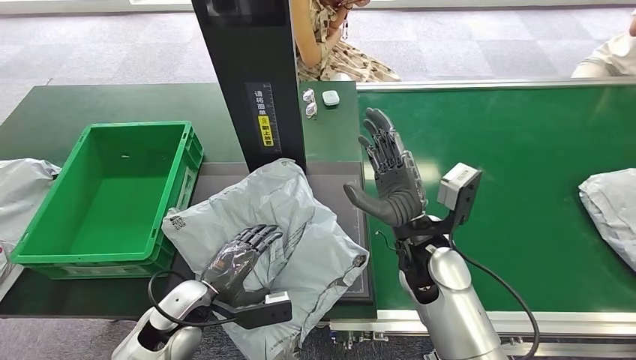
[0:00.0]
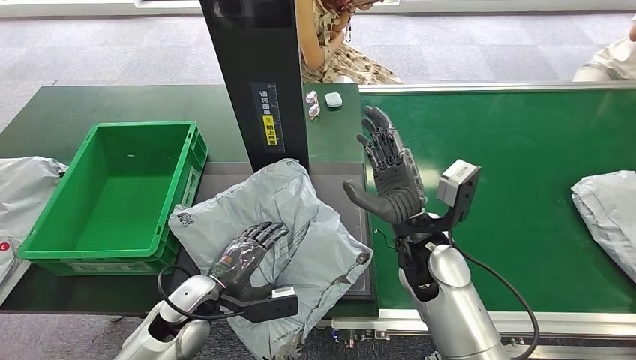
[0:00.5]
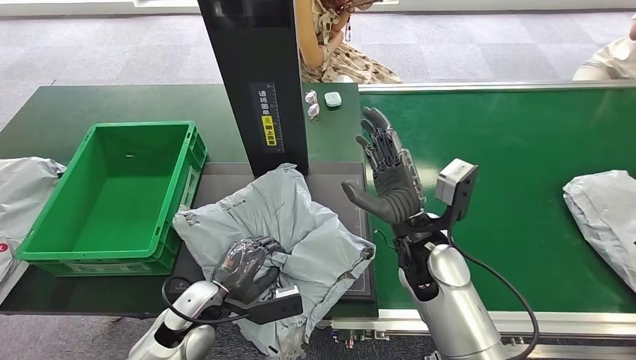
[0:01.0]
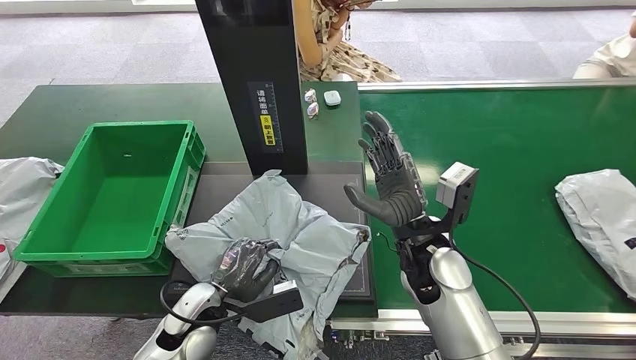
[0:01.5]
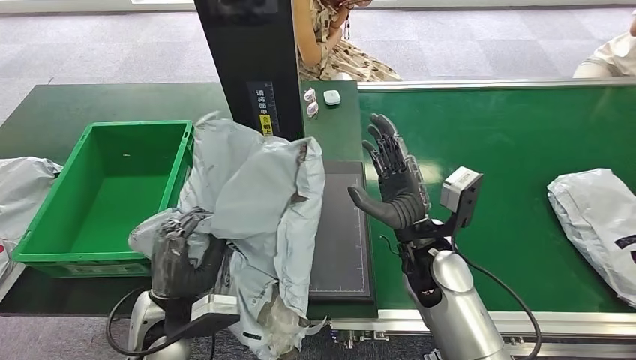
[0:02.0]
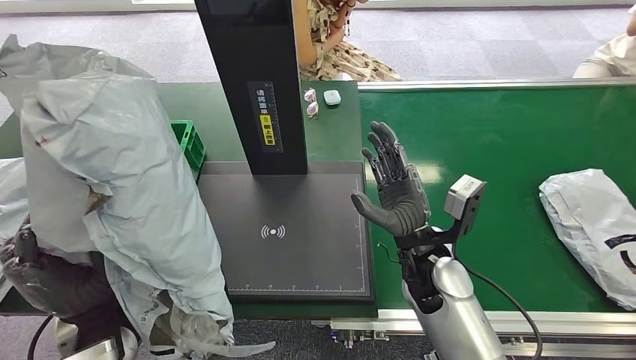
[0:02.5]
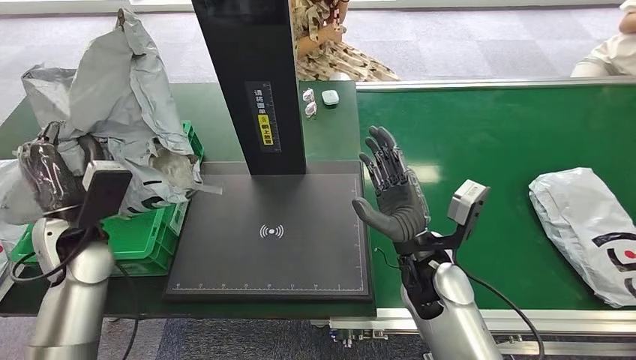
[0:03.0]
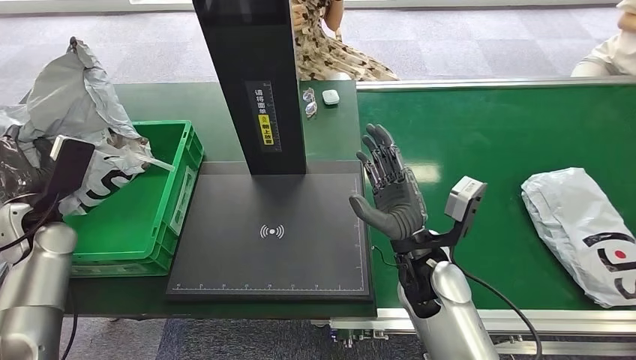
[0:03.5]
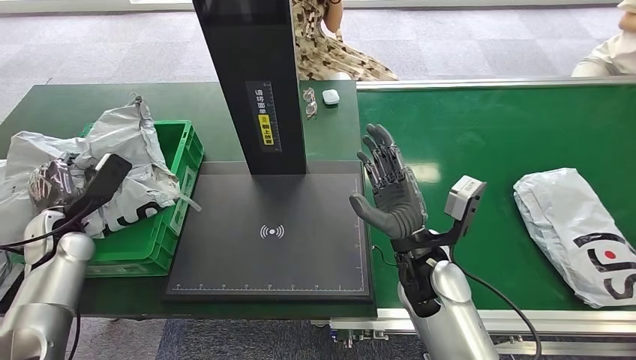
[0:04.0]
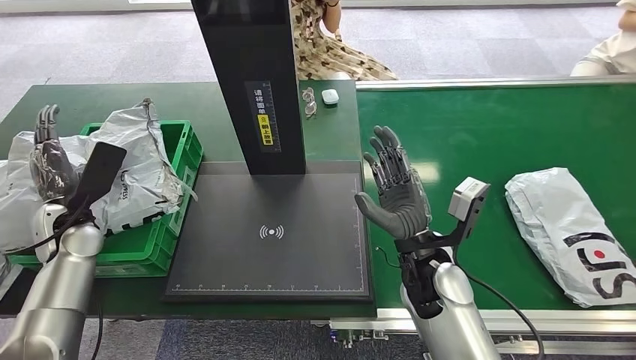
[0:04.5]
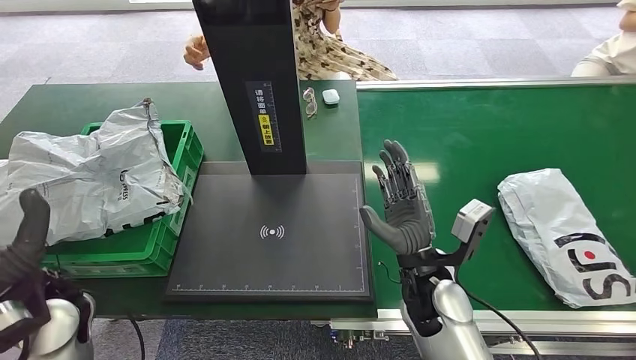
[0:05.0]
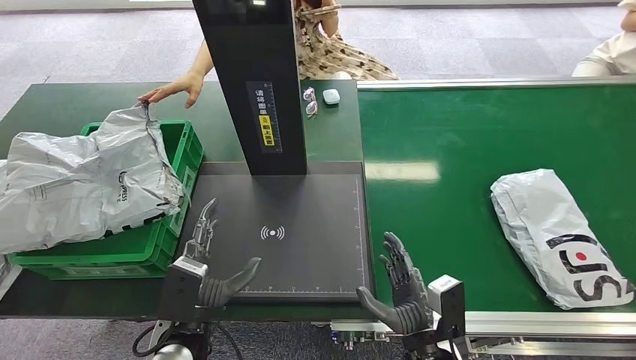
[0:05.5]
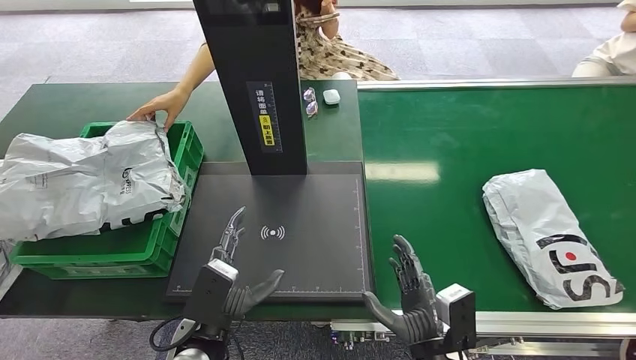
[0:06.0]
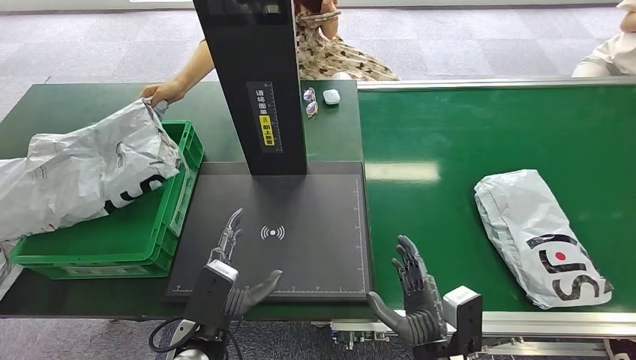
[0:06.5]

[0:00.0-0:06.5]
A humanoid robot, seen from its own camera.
Task of the whole recording: Weigh the package on the weighing device and place it in the left basket.
Step, 0:00.0 to 0:02.5: Pick up the package from the inbound machine.
Step, 0:03.5 to 0:06.5: Place the package into the parcel locker.
